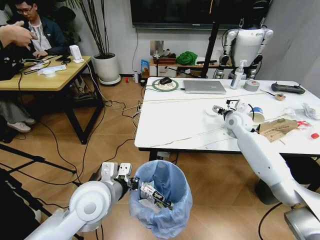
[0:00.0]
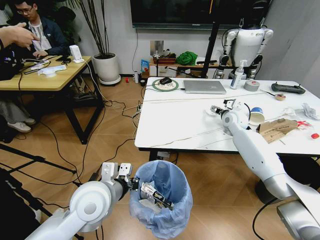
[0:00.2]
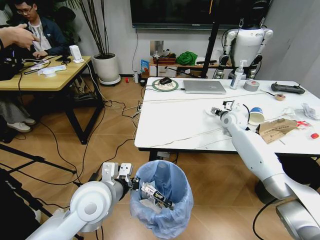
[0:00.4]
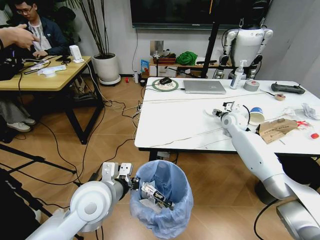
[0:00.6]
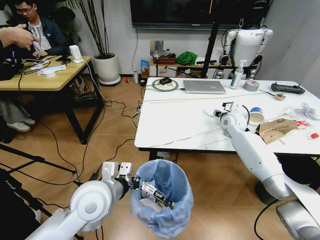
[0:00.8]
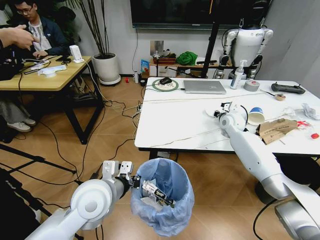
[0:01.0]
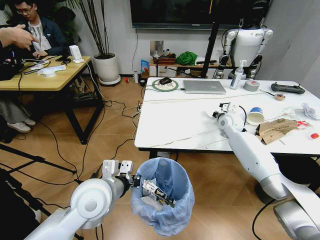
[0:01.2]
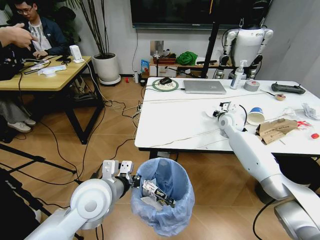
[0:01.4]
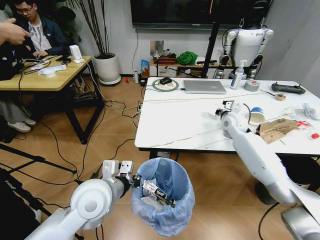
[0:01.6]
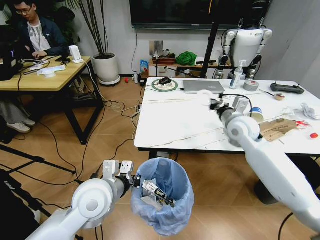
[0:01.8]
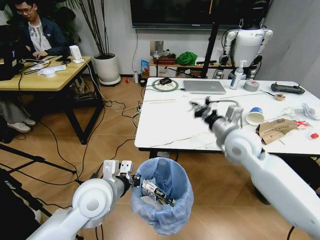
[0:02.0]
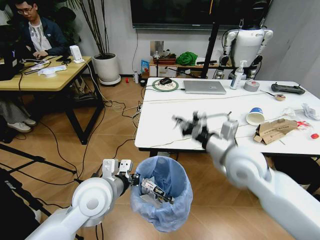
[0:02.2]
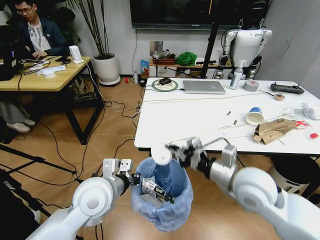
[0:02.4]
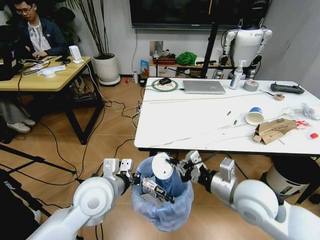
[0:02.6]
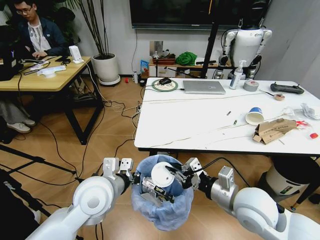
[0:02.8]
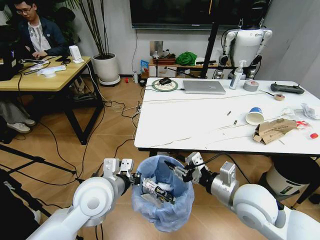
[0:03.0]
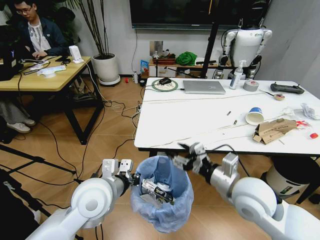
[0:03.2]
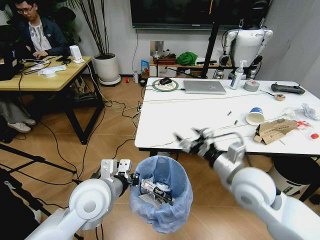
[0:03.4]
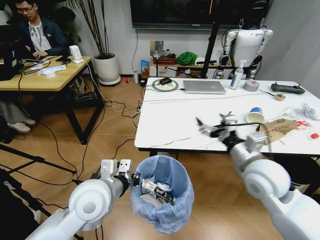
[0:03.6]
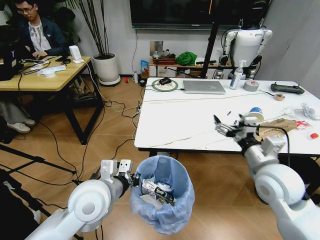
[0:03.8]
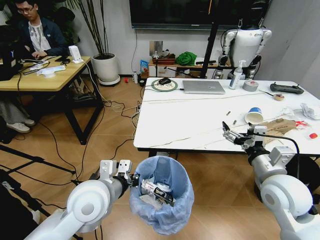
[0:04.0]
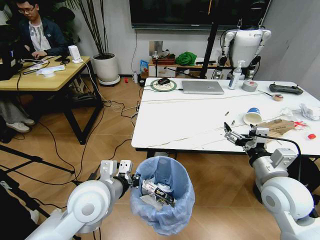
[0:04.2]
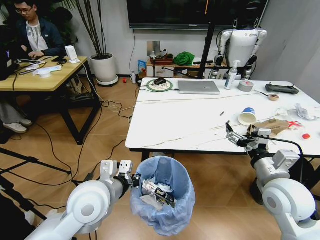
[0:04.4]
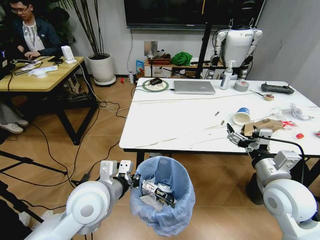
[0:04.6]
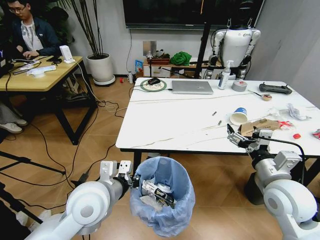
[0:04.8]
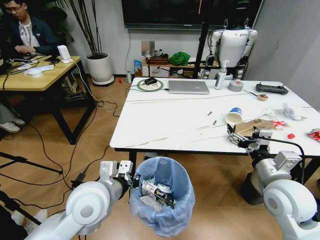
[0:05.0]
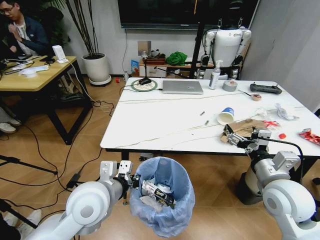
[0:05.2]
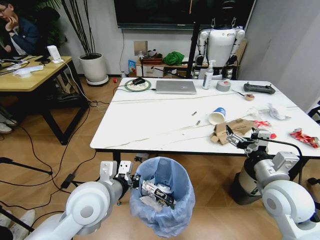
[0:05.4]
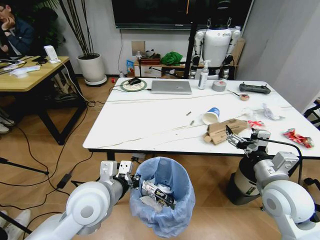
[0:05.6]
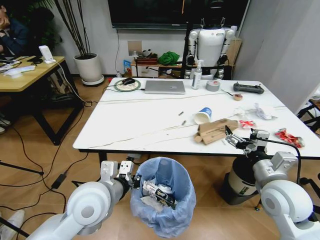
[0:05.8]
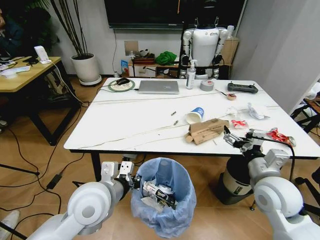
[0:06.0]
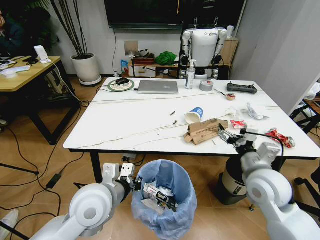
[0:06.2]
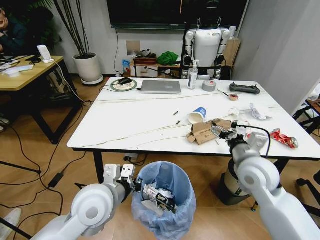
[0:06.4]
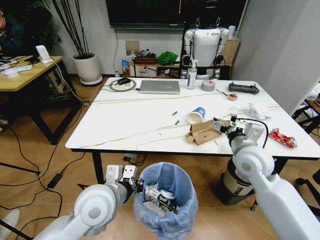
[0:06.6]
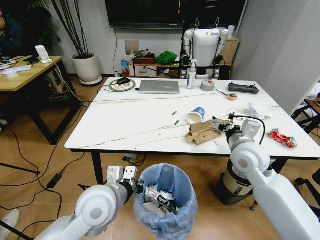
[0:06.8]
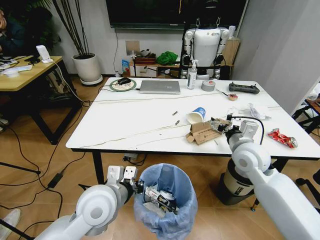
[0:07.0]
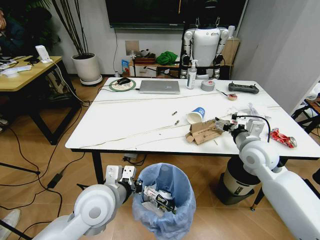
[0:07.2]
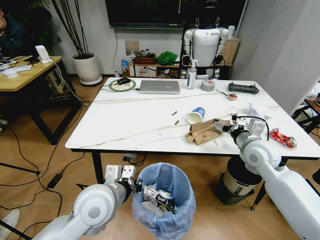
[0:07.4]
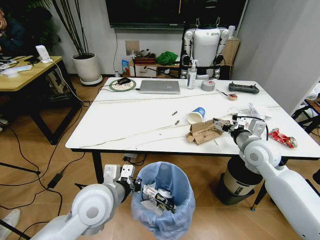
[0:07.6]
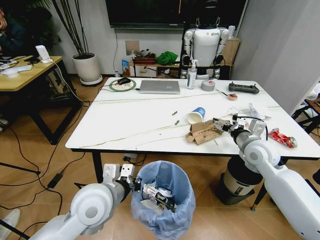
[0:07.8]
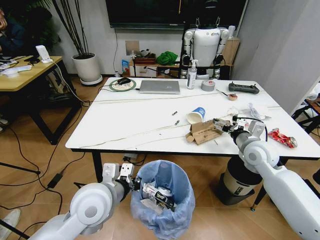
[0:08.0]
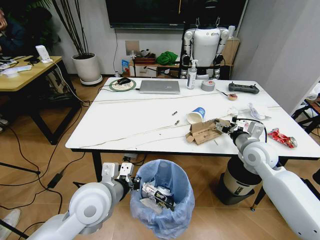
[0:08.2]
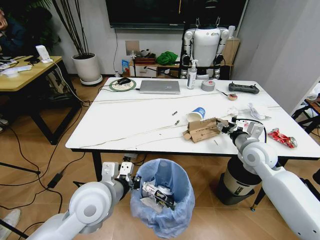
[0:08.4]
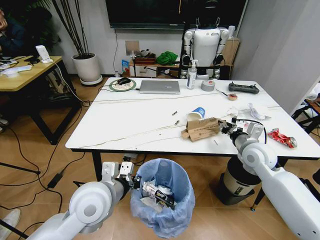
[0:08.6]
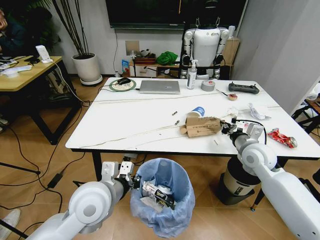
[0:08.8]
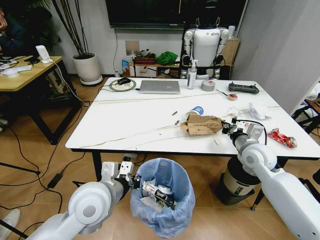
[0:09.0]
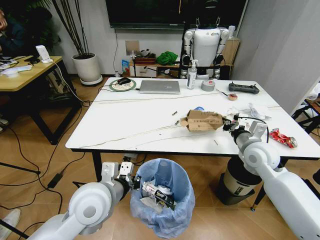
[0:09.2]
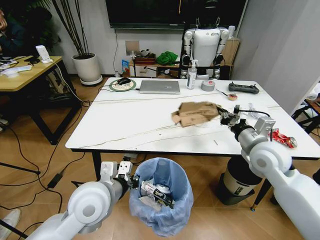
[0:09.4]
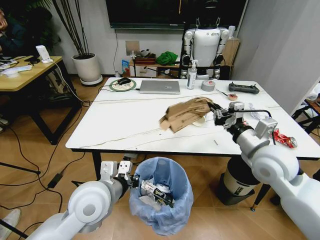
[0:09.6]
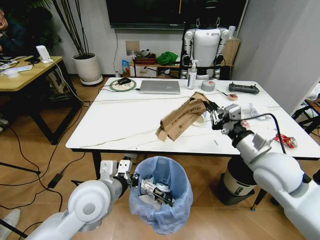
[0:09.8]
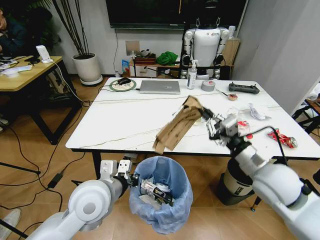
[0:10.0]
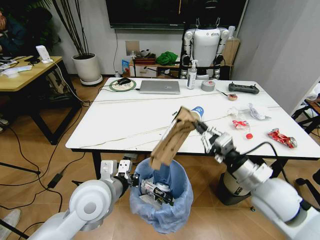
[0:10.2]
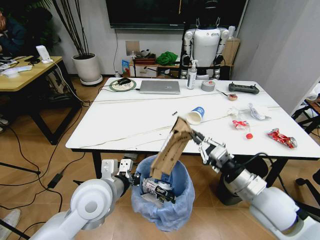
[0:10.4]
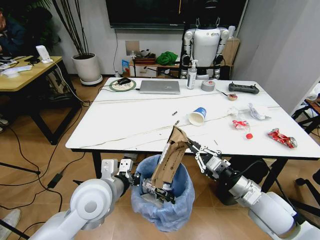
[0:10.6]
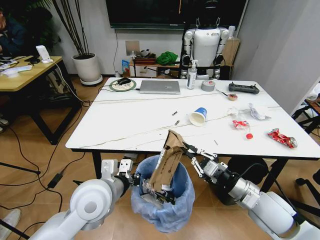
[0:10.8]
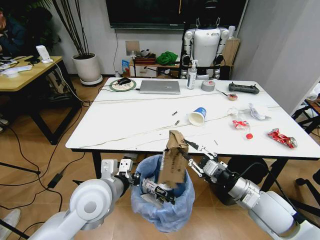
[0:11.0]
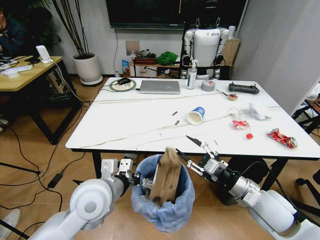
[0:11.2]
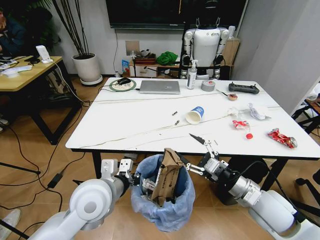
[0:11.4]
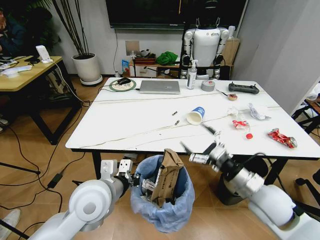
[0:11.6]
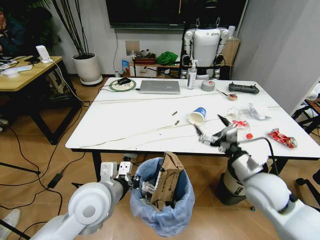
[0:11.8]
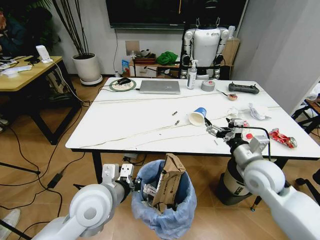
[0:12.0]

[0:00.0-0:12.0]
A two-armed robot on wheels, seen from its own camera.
Task of the whole recording: Pick up the trash bin and place the trash from the table into it.
0:00.0 to 0:01.6: The right gripper closes up.
0:01.6 to 0:03.0: The right gripper heads backward, covering about 30 cm, and opens.
0:03.0 to 0:04.4: The right gripper goes approximately 10 cm to the right, and opens its fingers.
0:06.0 to 0:07.6: The right gripper travels forward by approximately 15 cm.
0:07.6 to 0:09.0: The right gripper closes up.
0:09.0 to 0:10.4: The right gripper shifts about 15 cm backward.
0:10.4 to 0:12.0: The right gripper moves forward, approximately 10 cm, and opens its fingers.

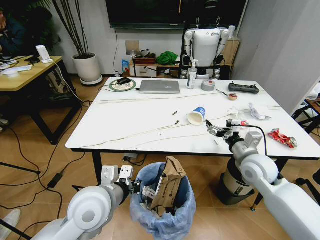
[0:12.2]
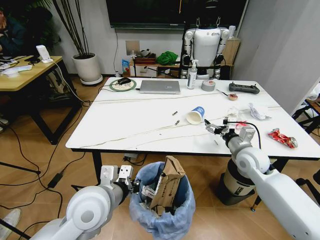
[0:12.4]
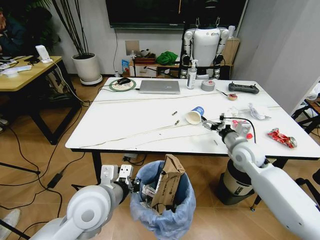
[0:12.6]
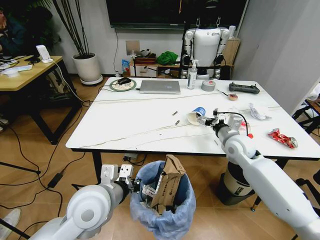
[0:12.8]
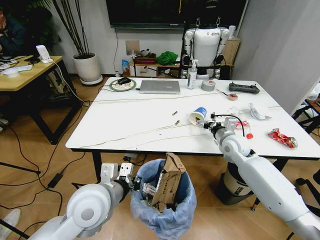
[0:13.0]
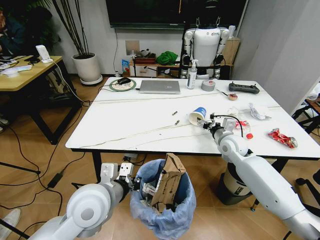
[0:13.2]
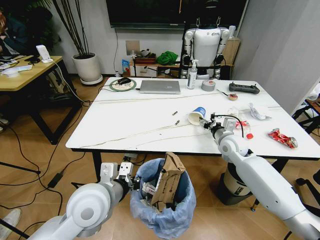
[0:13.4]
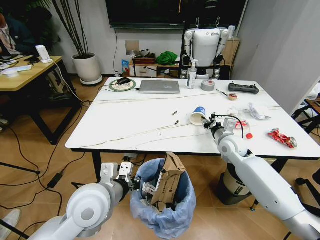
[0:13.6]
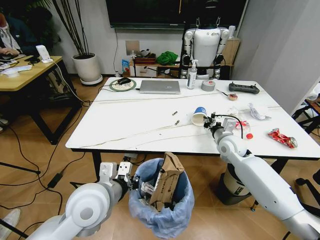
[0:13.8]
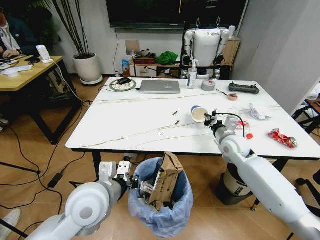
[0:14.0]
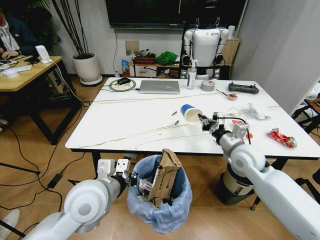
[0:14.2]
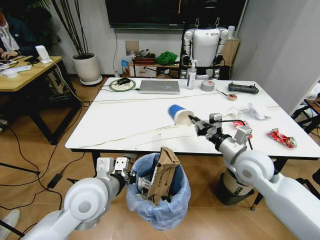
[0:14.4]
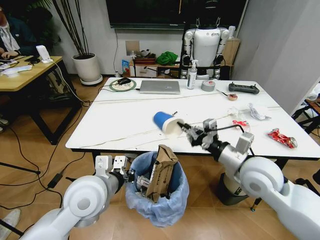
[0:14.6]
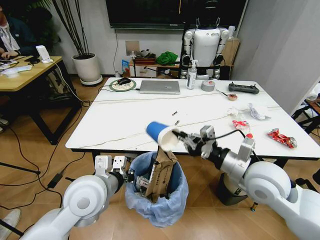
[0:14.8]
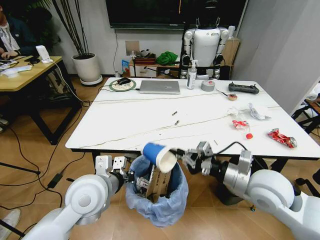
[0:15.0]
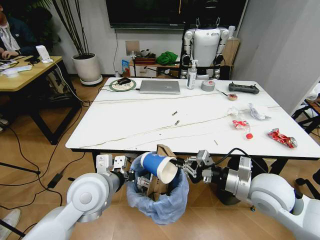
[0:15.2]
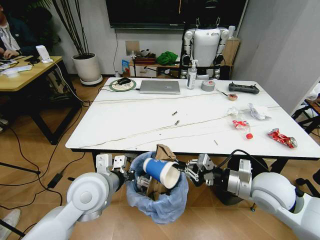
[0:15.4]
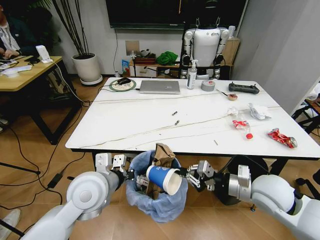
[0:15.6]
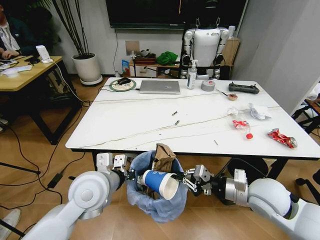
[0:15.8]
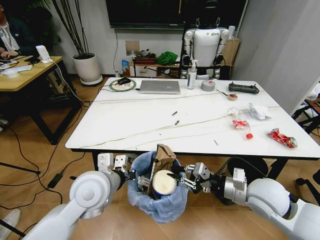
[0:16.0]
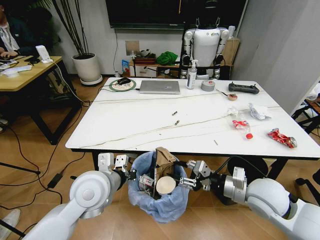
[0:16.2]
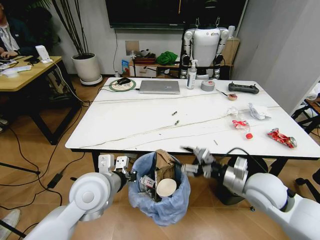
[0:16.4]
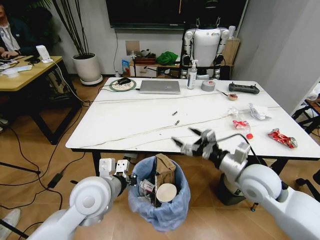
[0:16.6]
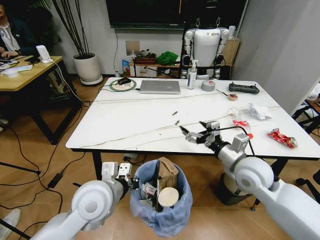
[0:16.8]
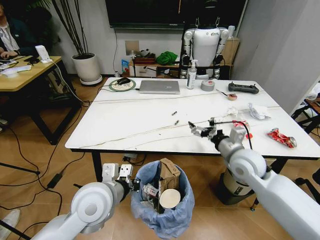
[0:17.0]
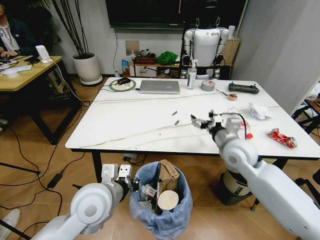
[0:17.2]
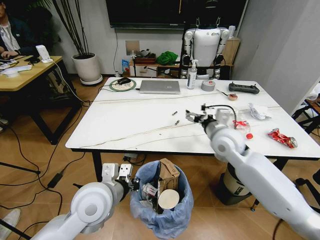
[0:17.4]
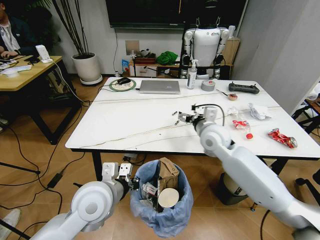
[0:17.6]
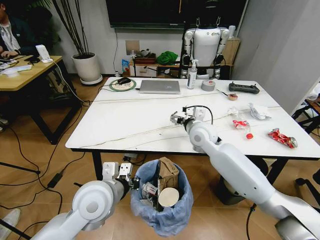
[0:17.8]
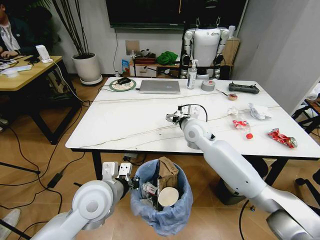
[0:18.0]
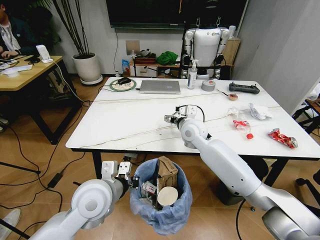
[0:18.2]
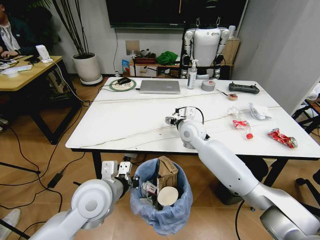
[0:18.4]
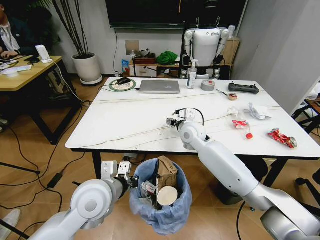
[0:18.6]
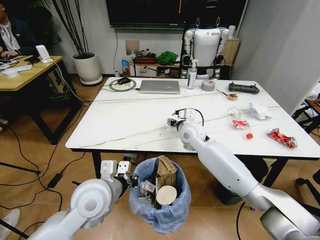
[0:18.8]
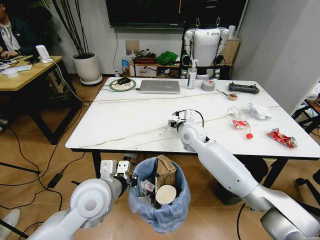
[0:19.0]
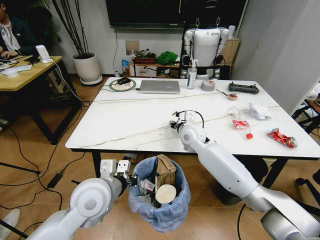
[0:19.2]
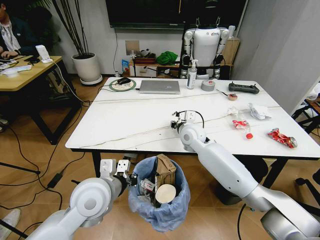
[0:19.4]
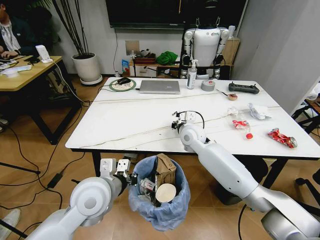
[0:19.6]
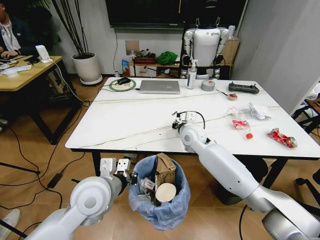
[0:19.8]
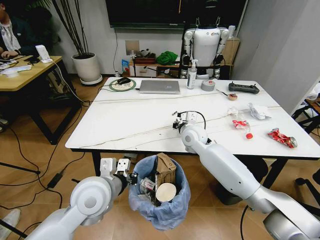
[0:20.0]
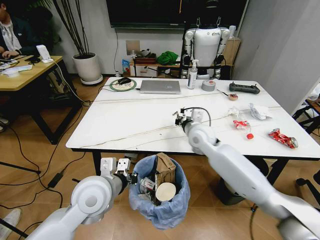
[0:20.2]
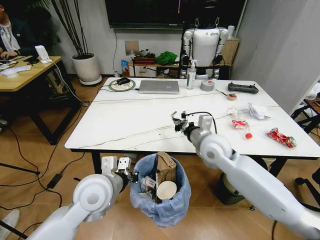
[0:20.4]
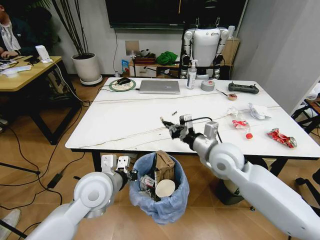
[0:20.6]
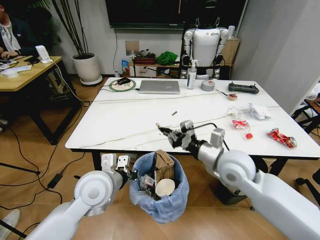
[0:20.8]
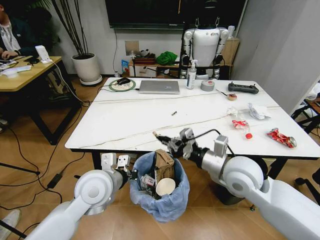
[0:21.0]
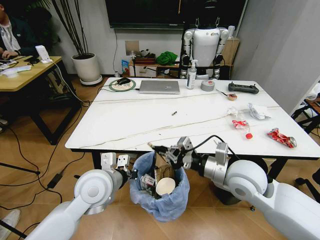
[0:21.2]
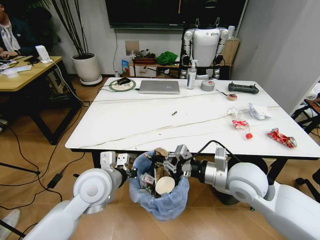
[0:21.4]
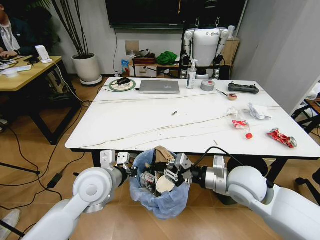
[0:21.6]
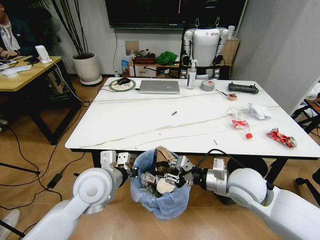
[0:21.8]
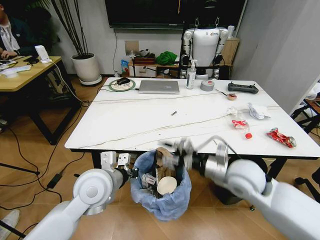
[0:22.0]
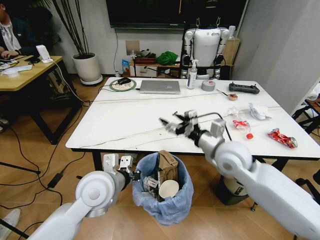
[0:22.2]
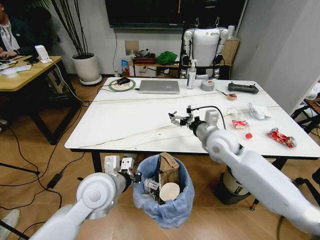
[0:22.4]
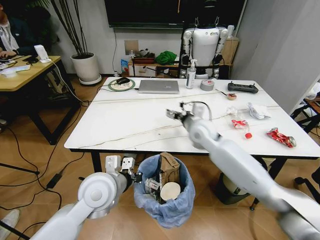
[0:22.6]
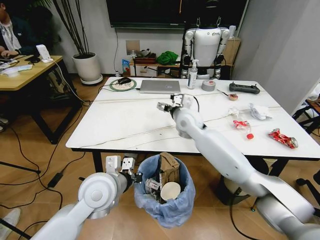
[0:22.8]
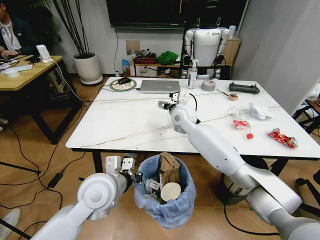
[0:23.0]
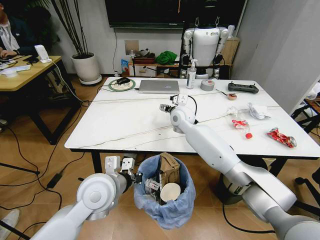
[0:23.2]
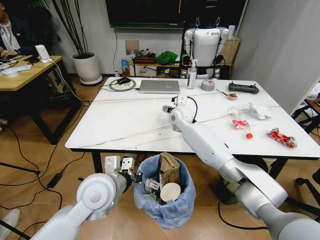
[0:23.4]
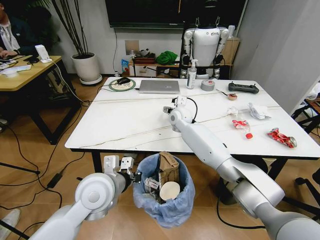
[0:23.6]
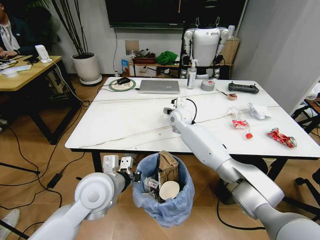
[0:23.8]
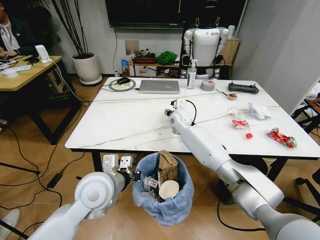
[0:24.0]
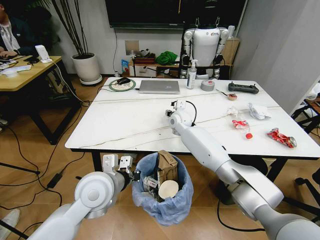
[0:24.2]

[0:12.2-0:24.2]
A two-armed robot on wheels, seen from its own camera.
Task of the whole recording: Pick up the trash bin and place the trash from the table into it.
0:12.2 to 0:13.8: The right gripper is displaced forward by roughly 10 cm, and closes its fingers.
0:13.8 to 0:15.2: The right gripper shifts roughly 20 cm backward.
0:15.2 to 0:16.6: The right gripper opens.
0:16.6 to 0:18.2: The right gripper moves forward and to the left, some 25 cm.
0:18.2 to 0:19.8: The right gripper closes.
0:19.8 to 0:21.2: The right gripper heads backward and to the right, covering approximately 20 cm.
0:21.2 to 0:22.6: The right gripper shifts approximately 15 cm forward, and opens up.
0:22.6 to 0:24.2: The right gripper heads forward and to the left, covering roughly 15 cm.
